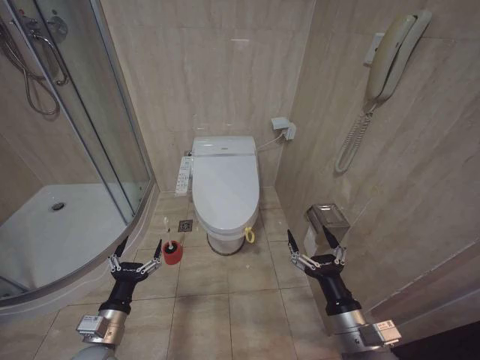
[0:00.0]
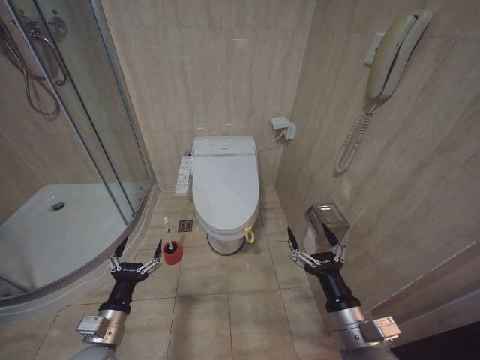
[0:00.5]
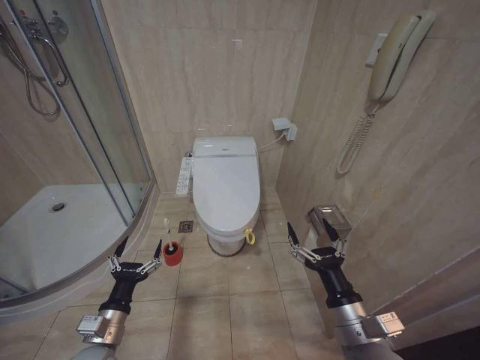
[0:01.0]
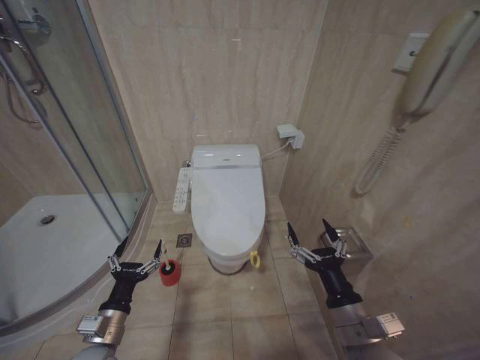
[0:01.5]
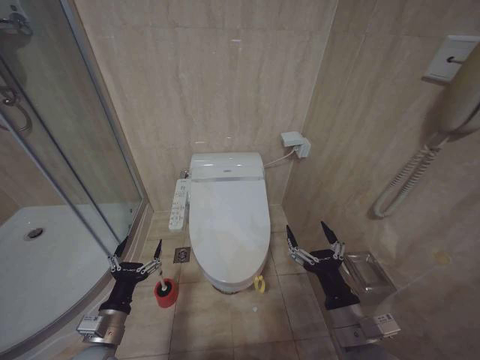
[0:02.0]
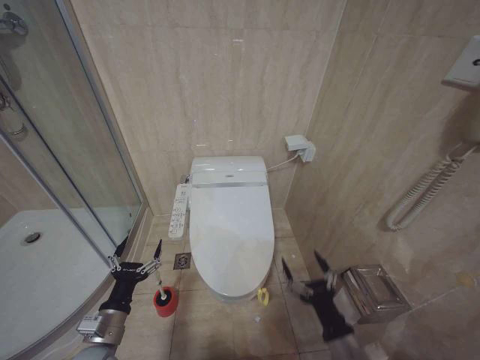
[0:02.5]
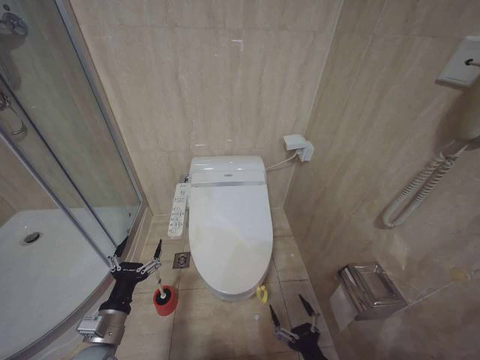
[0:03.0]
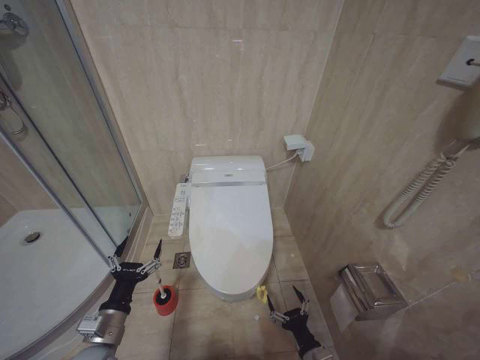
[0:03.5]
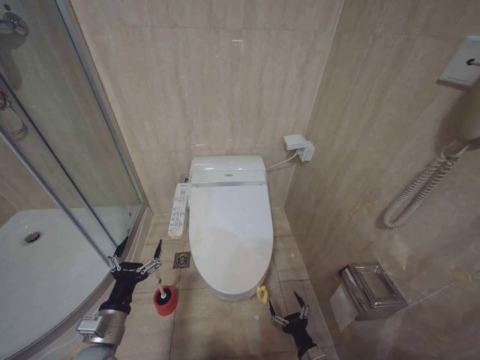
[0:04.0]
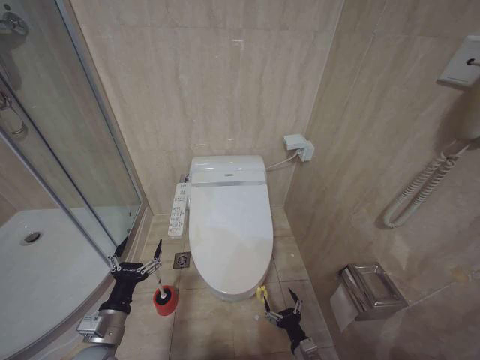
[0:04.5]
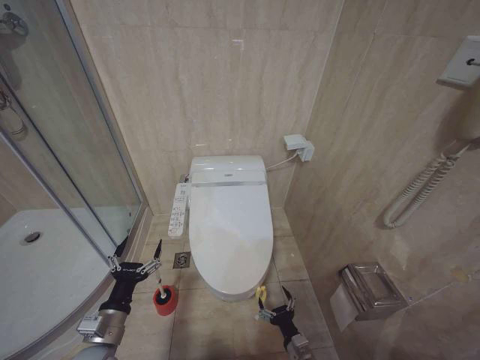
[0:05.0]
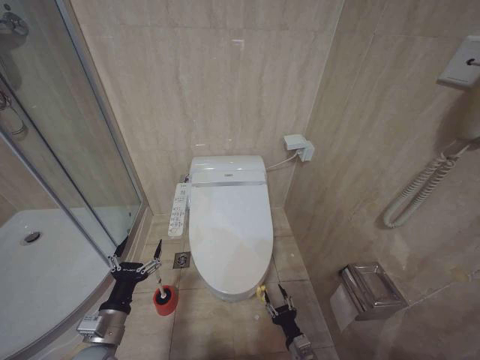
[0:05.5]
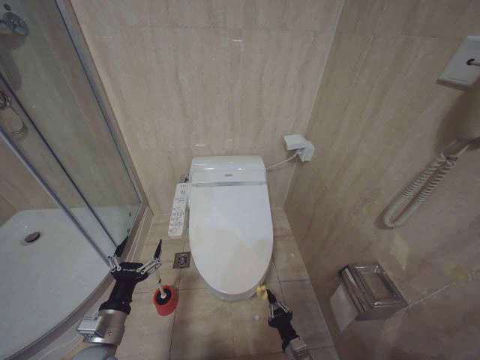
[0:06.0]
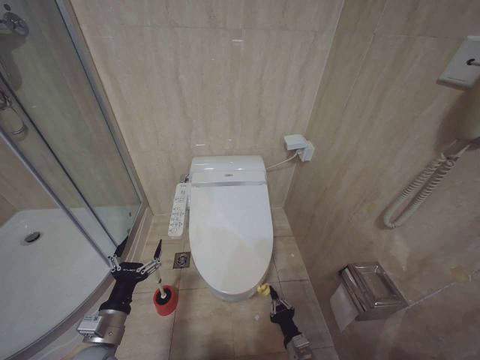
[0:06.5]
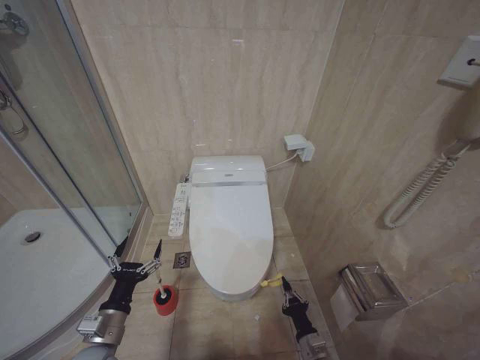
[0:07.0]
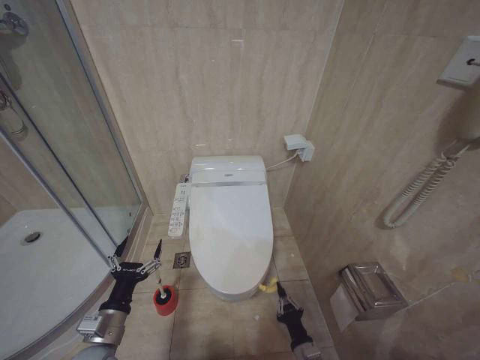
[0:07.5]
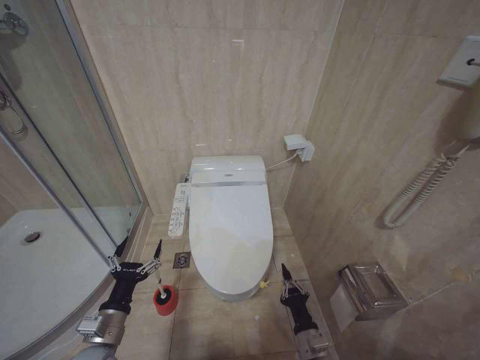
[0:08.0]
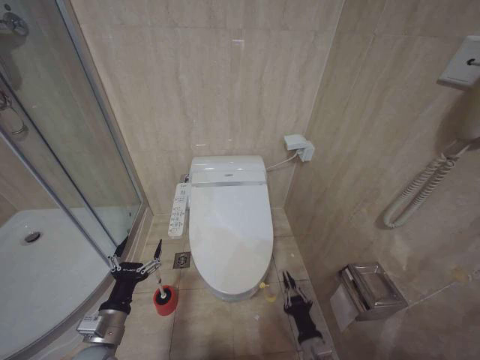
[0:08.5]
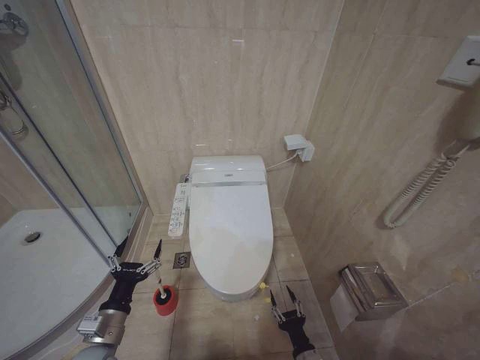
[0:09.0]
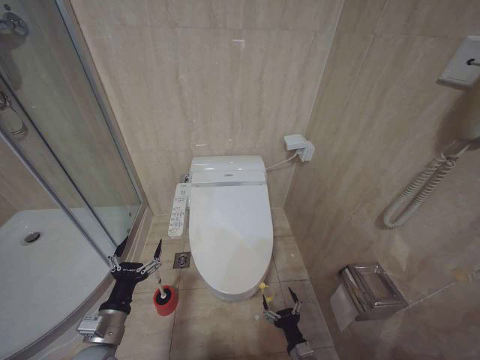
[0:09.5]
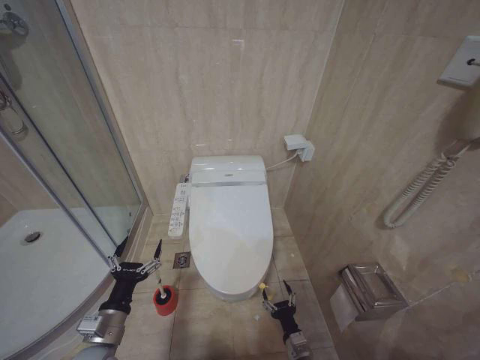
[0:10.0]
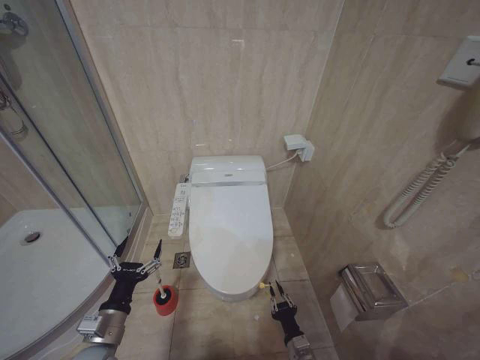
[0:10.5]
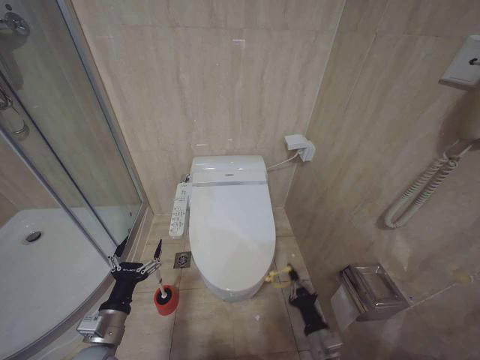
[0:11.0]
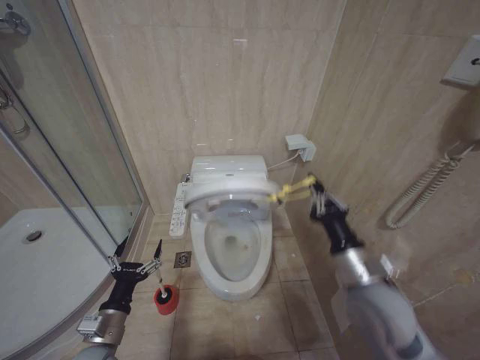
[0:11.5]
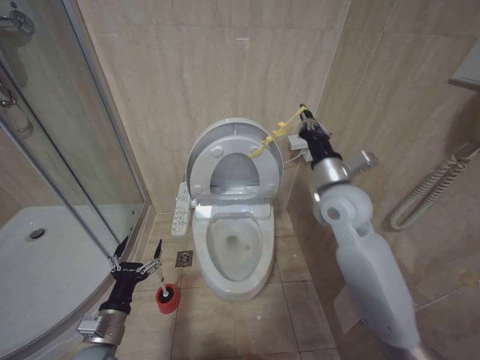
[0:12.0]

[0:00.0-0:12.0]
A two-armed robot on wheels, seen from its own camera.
Task of the whole recording: Open the toilet lid, clean the toilet bowl with a toilet brush, close the toilet lid, and flush.
0:02.0 to 0:04.0: The right gripper moves downward, approximately 25 cm.
0:04.0 to 0:06.0: The right gripper closes up.
0:06.0 to 0:08.0: The right gripper shifts approximately 10 cm upward.
0:08.0 to 0:10.0: The right gripper shifts roughly 5 cm downward, and opens up.
0:10.0 to 0:12.0: The right gripper goes approximately 50 cm upward, and closes.

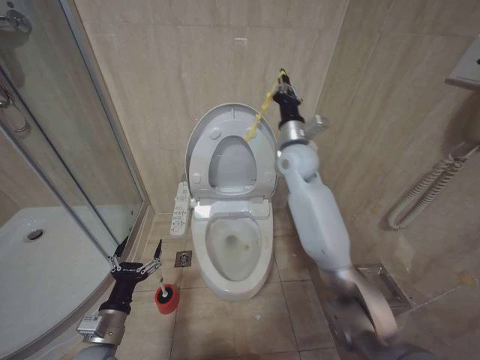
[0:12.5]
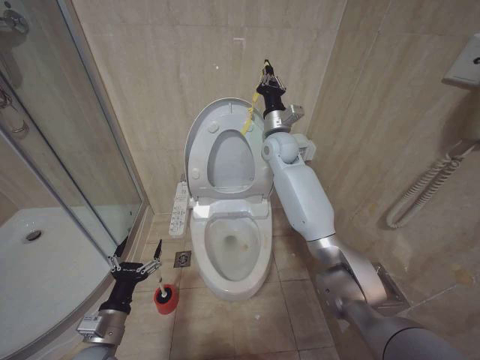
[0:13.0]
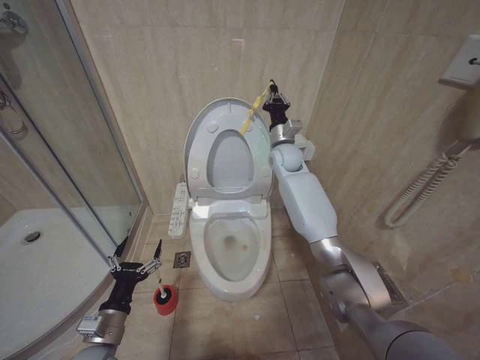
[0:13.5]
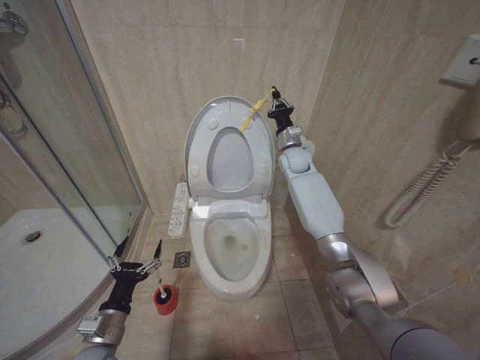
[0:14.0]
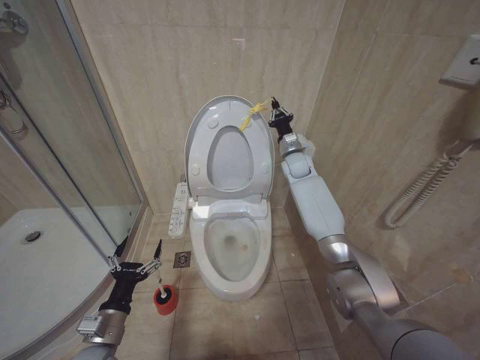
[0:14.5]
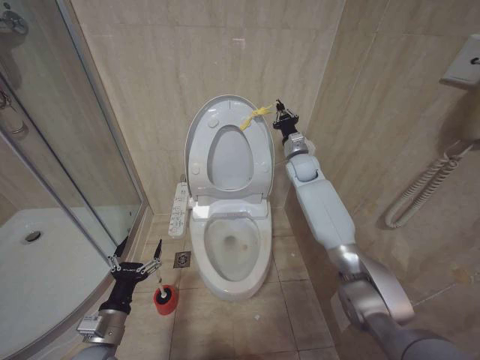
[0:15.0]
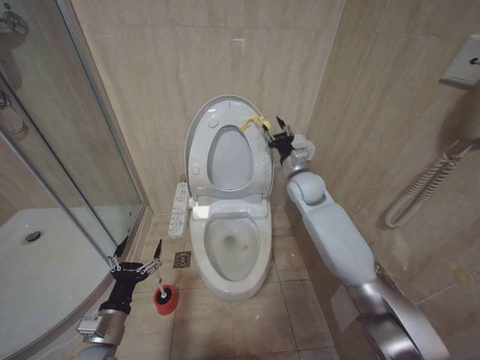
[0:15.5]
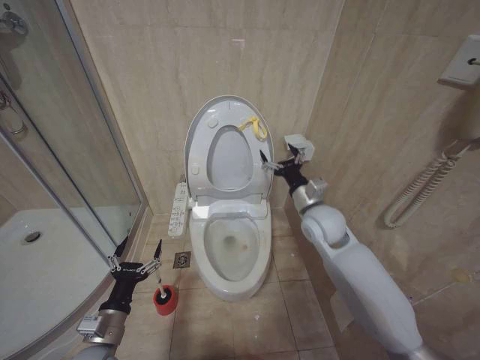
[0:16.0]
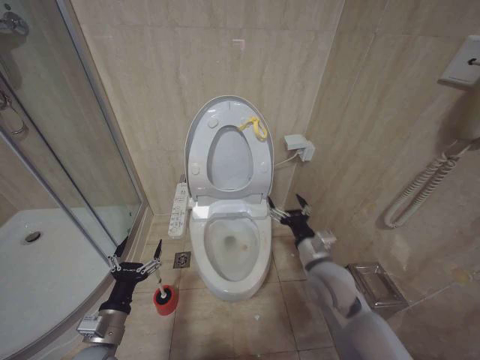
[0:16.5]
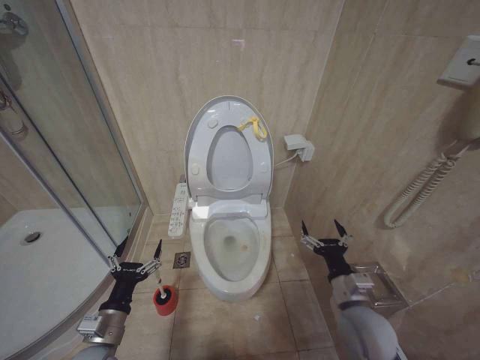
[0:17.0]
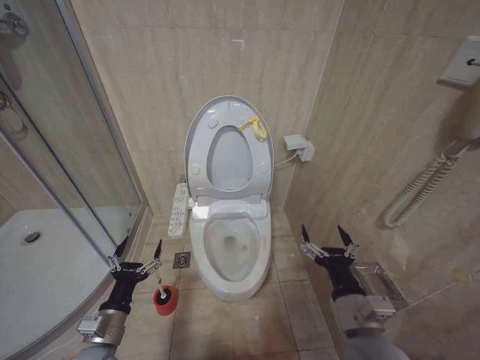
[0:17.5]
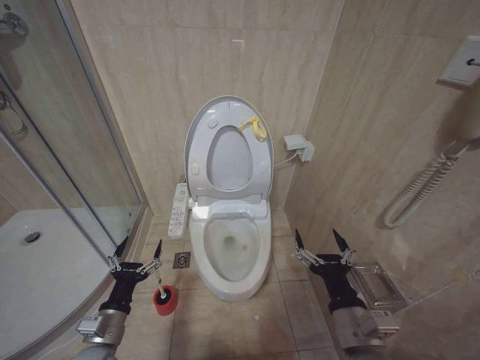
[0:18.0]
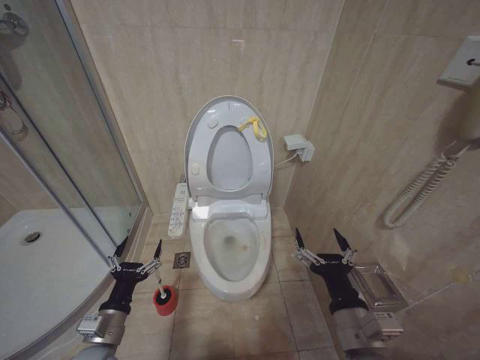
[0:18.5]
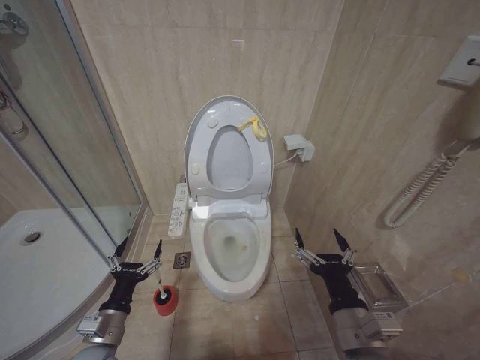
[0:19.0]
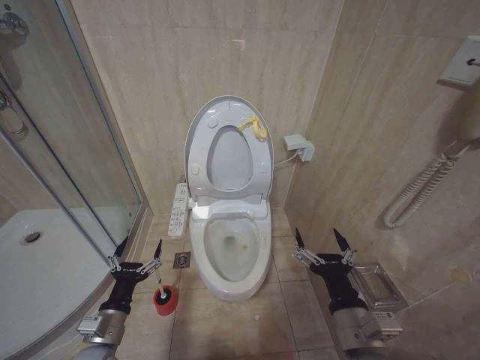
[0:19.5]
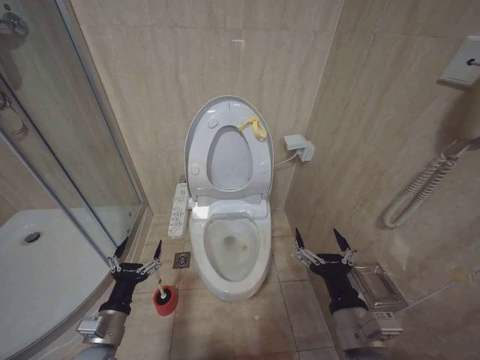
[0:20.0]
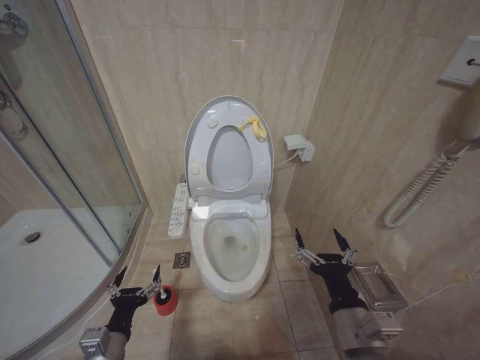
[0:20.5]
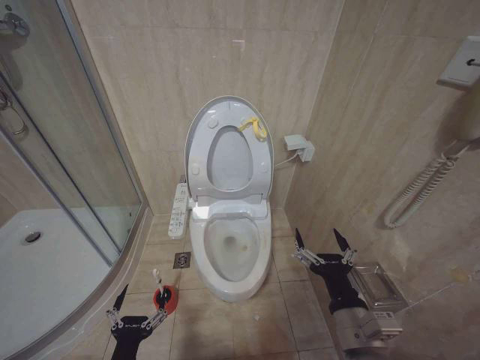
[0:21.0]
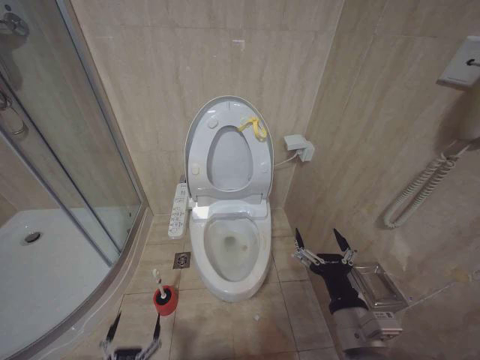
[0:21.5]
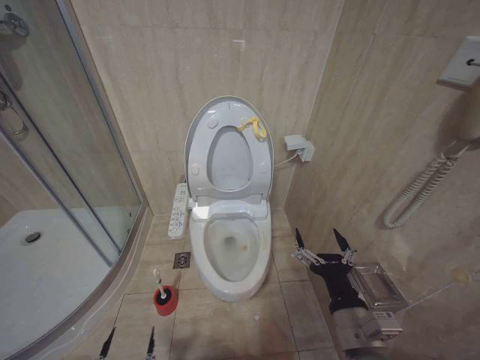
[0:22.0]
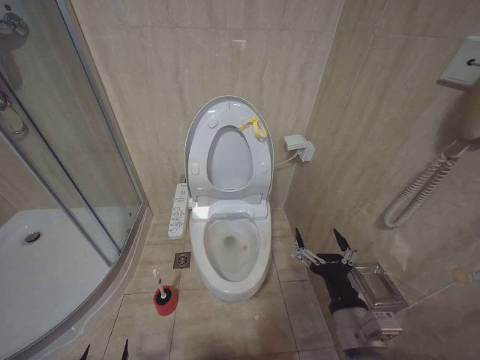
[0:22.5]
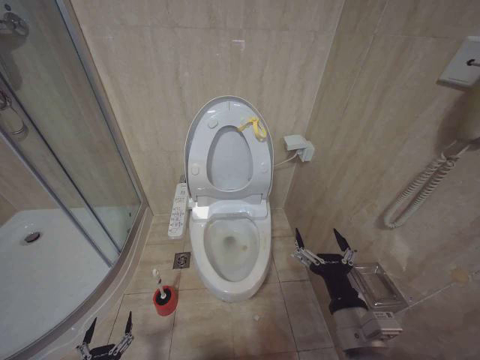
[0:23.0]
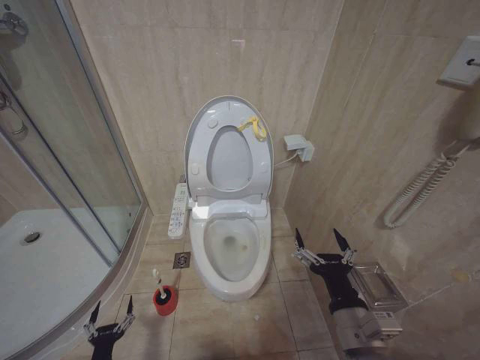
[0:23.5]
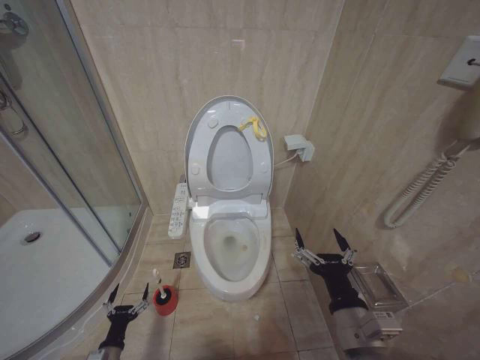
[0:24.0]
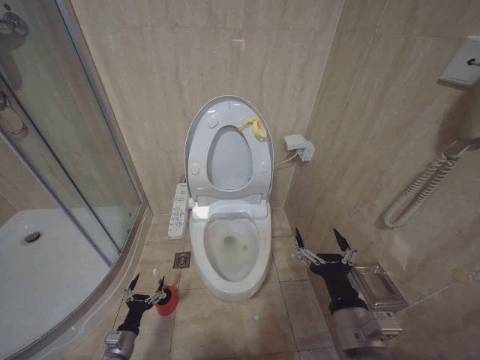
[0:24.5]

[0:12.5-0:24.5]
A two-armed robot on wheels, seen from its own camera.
Task of the whole recording: Open the toilet lid, clean the toilet bowl with a toilet brush, close the toilet lid, and flush.
0:12.5 to 0:14.5: The right gripper heads forward and downward, covering approximately 15 cm.
0:14.5 to 0:16.5: The right gripper heads backward and downward, covering approximately 35 cm, and opens.
0:16.5 to 0:18.5: The right gripper goes approximately 15 cm backward.
0:18.5 to 0:20.5: The grippers move only a little.
0:20.5 to 0:22.5: The left gripper is displaced downward and backward by approximately 25 cm.
0:22.5 to 0:24.5: The left gripper travels forward by some 20 cm.

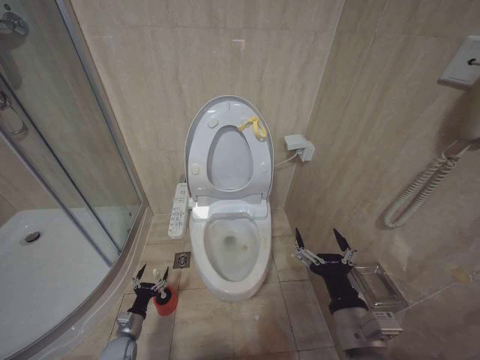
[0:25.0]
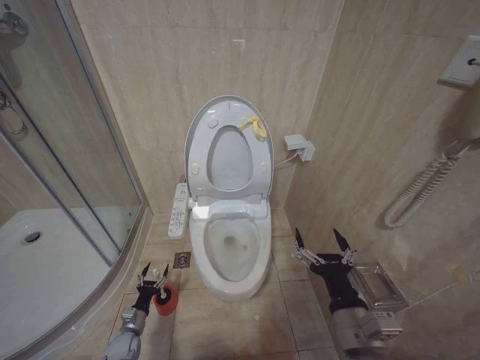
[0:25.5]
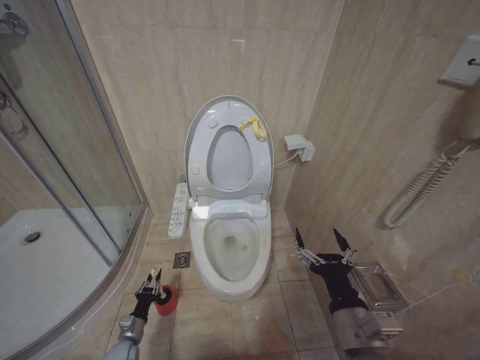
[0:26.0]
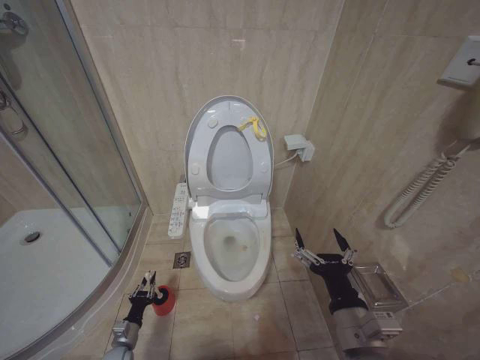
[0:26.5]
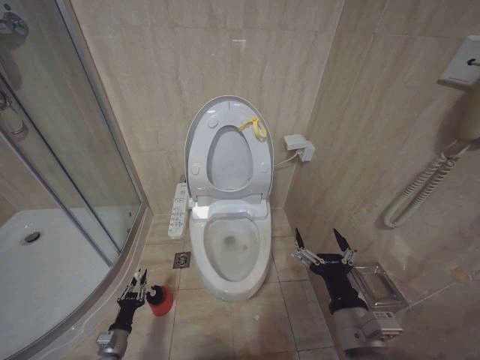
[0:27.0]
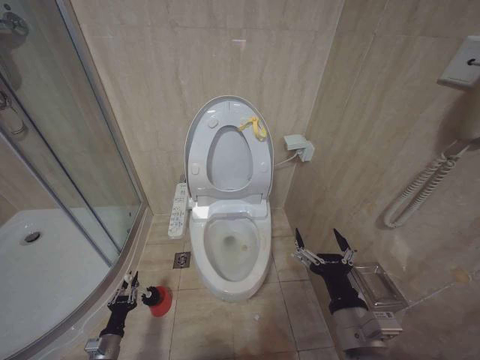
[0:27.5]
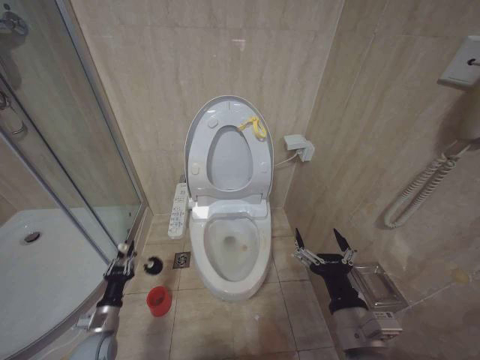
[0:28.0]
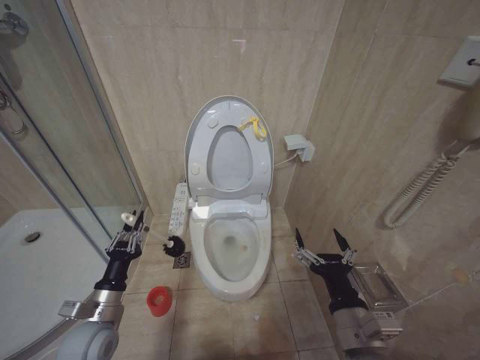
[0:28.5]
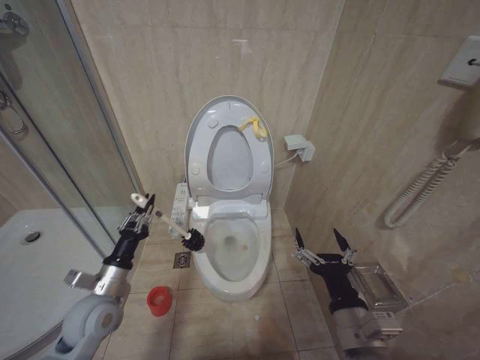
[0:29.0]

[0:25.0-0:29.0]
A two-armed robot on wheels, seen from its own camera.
Task of the whole recording: Open the toilet lid, clean the toilet bowl with a toilet brush, close the toilet lid, and flush.
0:25.0 to 0:27.0: The left gripper closes.
0:27.0 to 0:29.0: The left gripper heads upward, covering approximately 25 cm.
